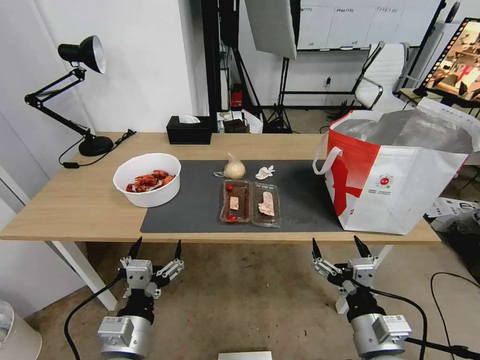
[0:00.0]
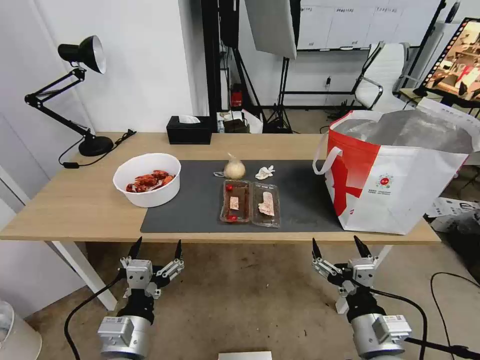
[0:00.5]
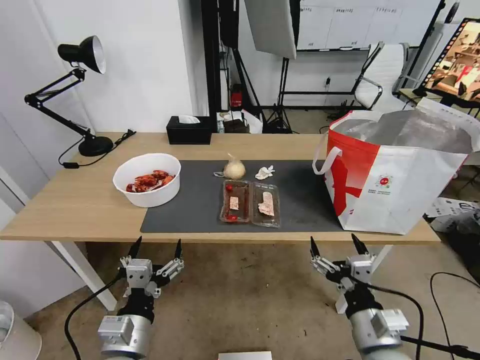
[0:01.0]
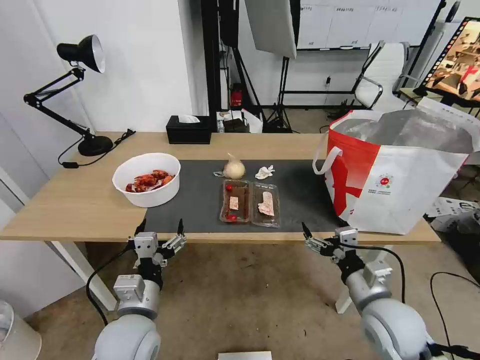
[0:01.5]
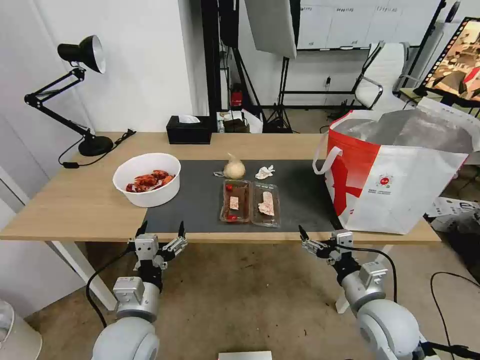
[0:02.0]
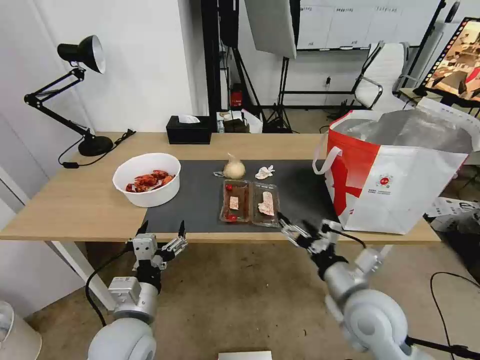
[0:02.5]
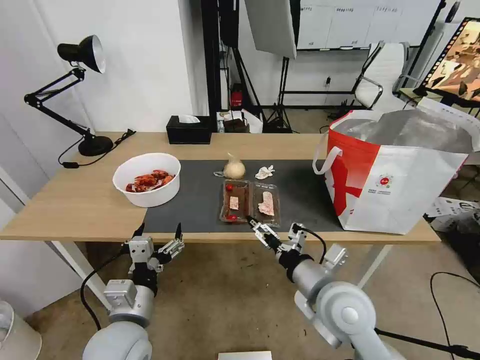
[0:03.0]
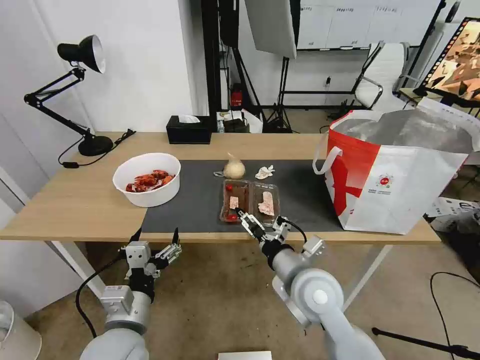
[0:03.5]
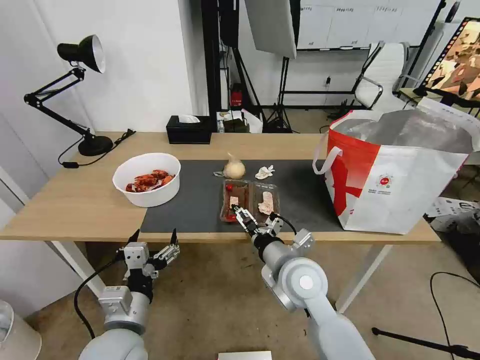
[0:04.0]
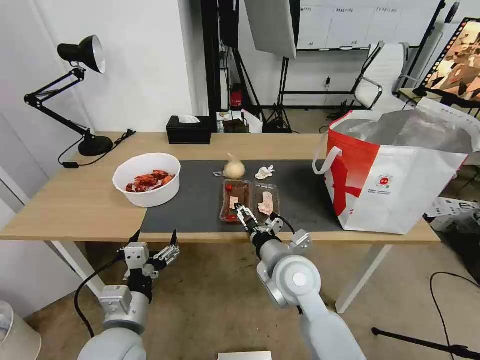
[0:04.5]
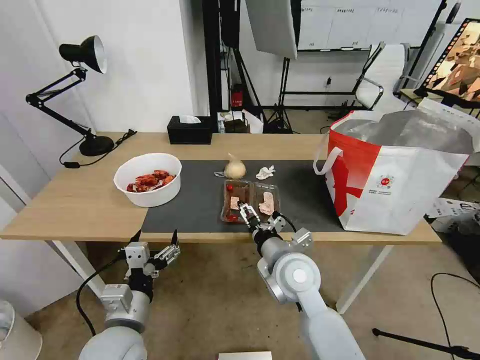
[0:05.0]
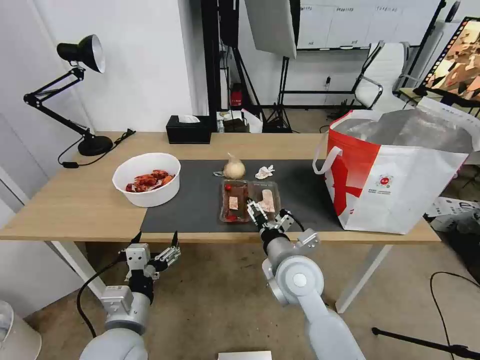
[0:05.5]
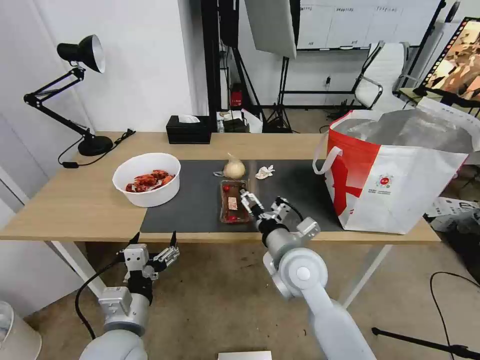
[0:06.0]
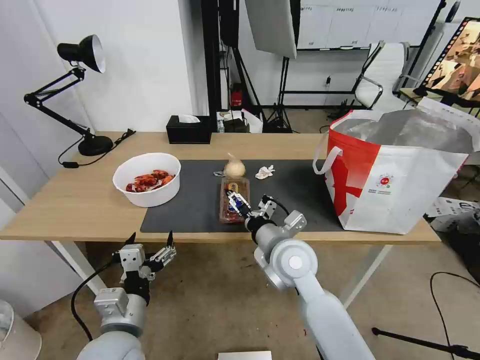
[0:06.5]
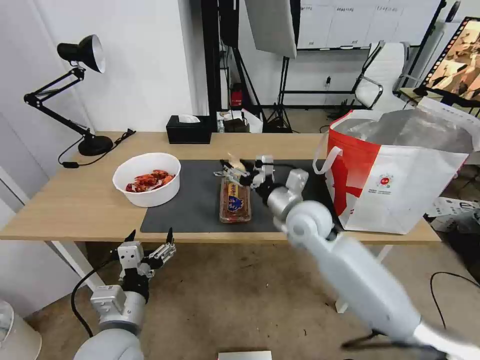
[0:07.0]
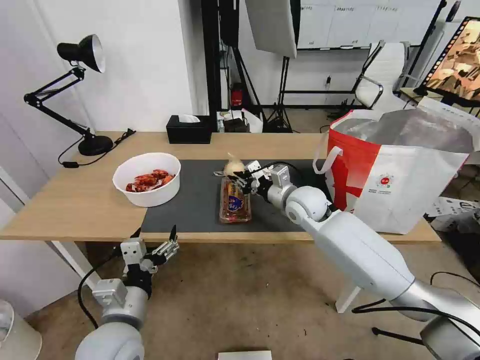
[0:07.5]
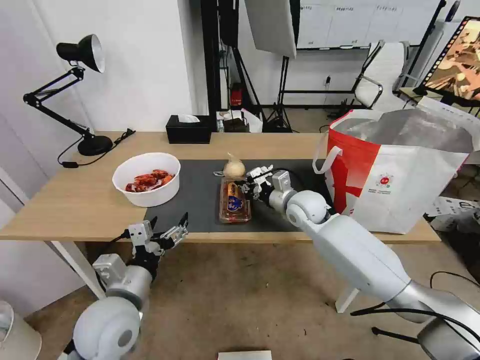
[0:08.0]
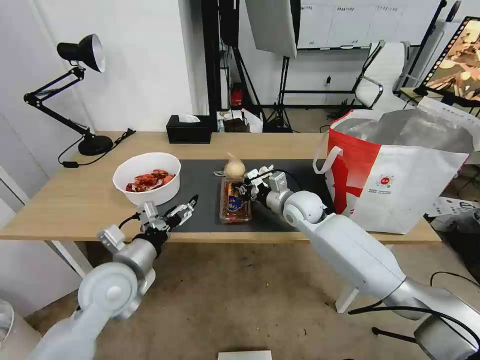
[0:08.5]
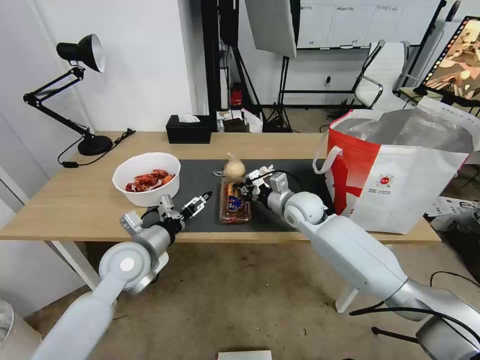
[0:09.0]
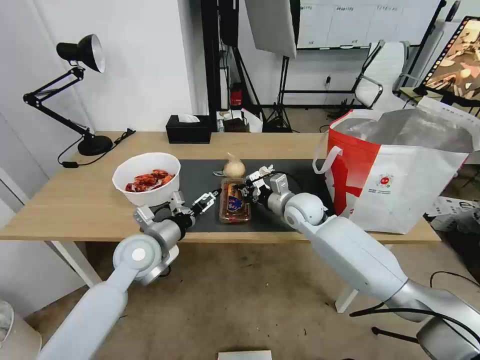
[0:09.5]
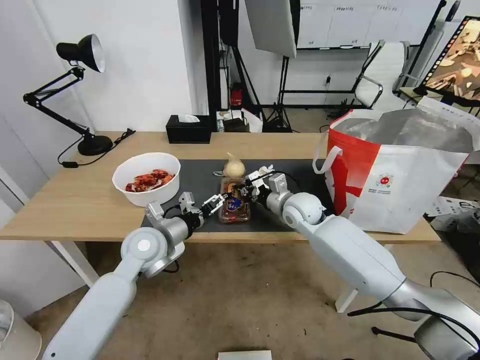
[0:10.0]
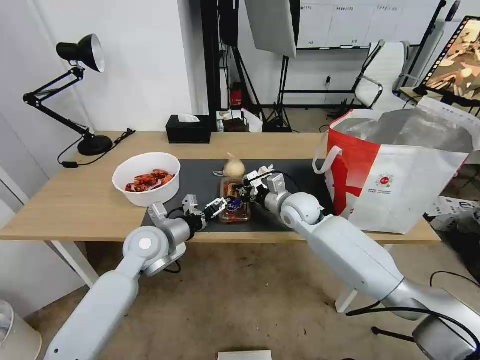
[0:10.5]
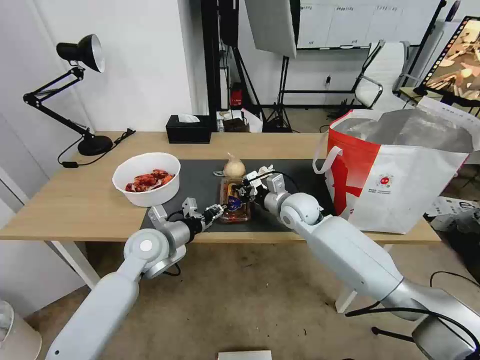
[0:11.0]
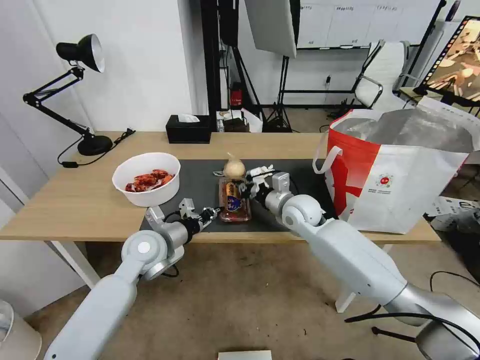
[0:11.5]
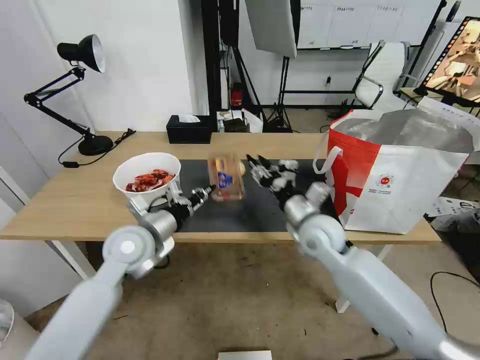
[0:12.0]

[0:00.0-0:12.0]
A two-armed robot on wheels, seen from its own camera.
Task of the whole recording: Pick up the trash from the table and place it into the takeout bag.
0:02.0 to 0:04.0: The right gripper goes some 15 cm to the left and forward.
0:04.0 to 0:06.0: The grippers make only small movements.
0:06.0 to 0:08.0: The right gripper is displaced forward by approximately 20 cm, and closes its fingers. Meanwhile the left gripper moves approximately 5 cm.
0:08.0 to 0:10.0: The left gripper moves forward, about 15 cm.
0:10.0 to 0:12.0: The right gripper travels backward by approximately 10 cm, and opens its fingers. Meanwhile the left gripper closes its fingers.

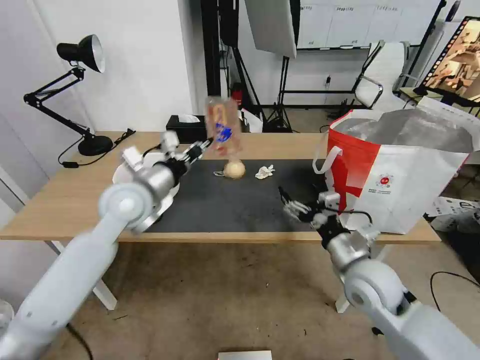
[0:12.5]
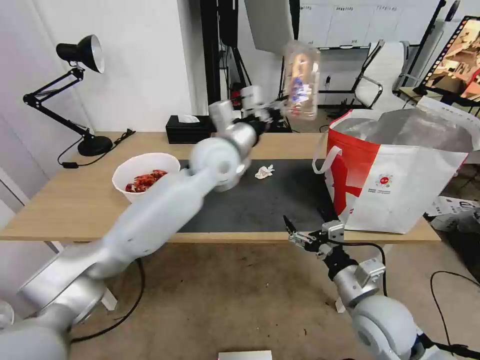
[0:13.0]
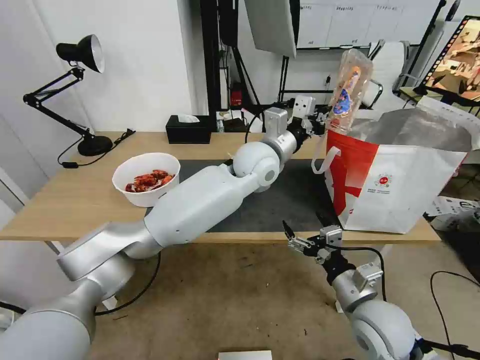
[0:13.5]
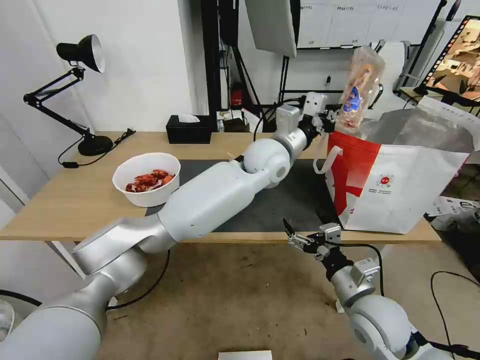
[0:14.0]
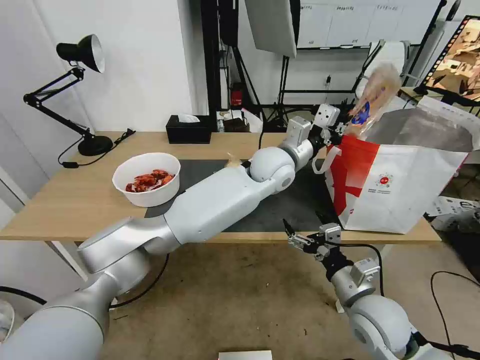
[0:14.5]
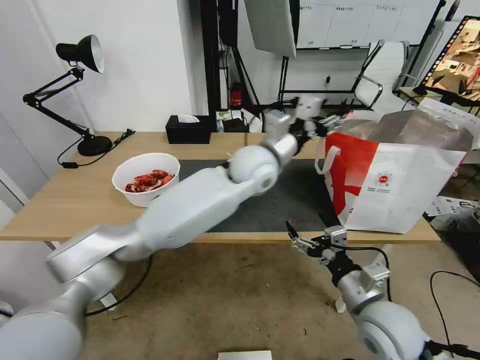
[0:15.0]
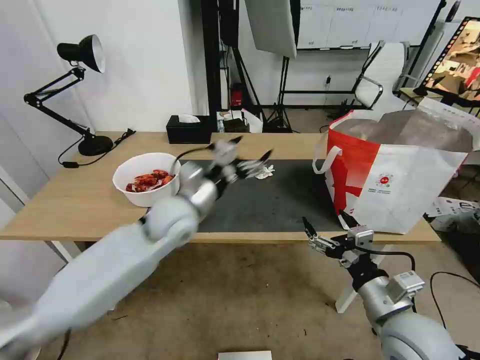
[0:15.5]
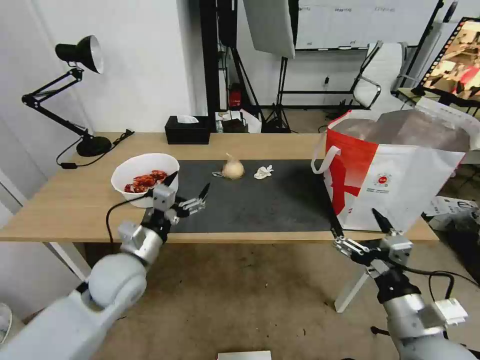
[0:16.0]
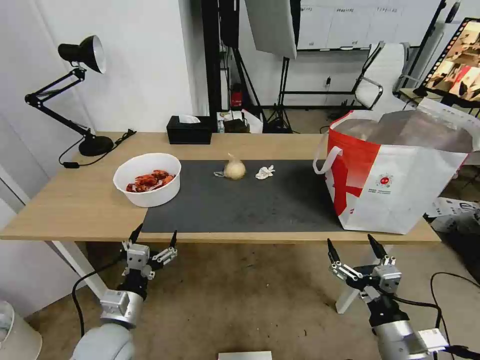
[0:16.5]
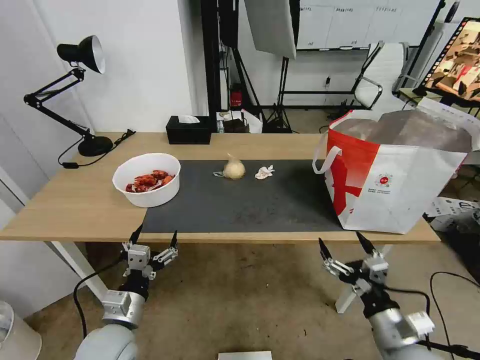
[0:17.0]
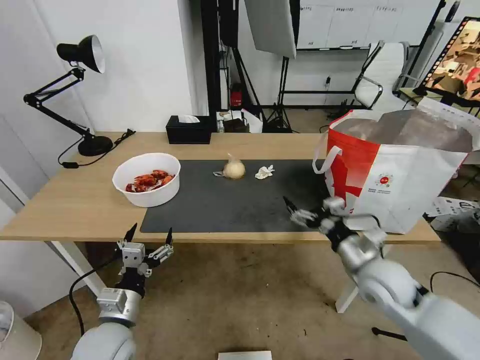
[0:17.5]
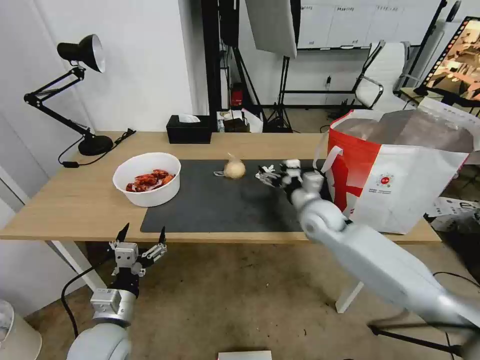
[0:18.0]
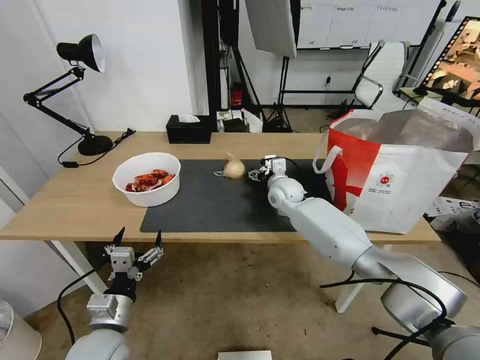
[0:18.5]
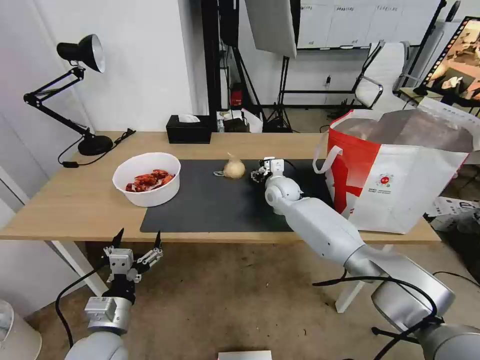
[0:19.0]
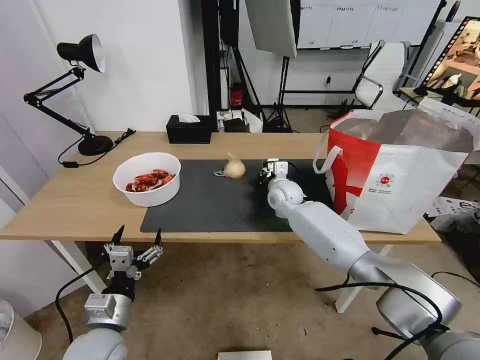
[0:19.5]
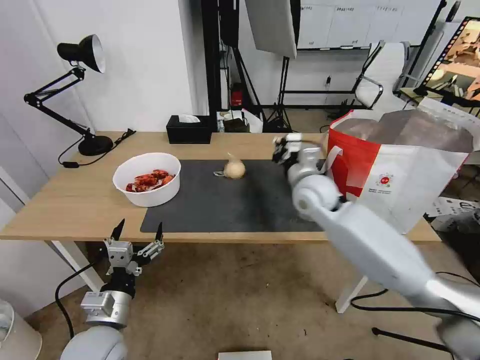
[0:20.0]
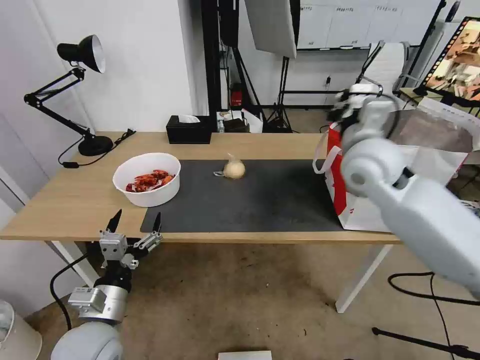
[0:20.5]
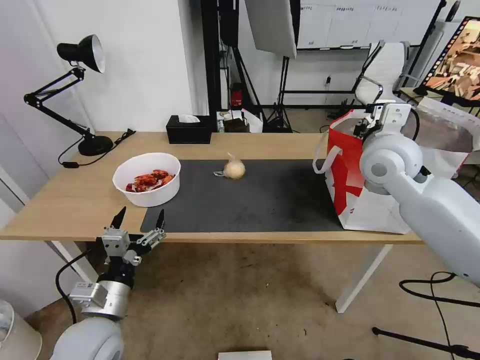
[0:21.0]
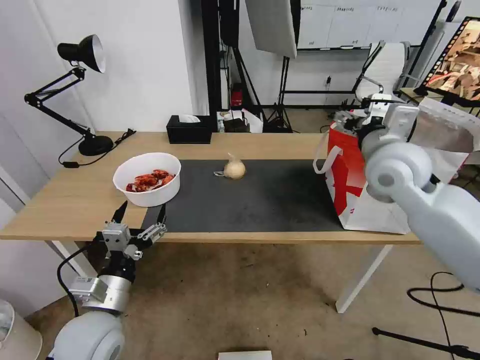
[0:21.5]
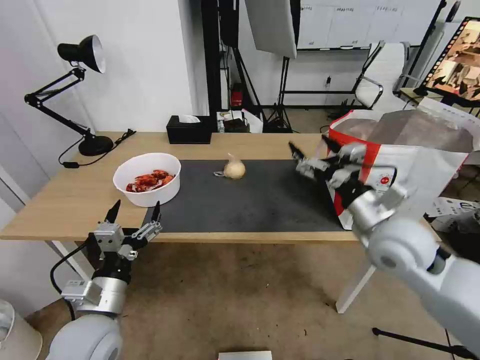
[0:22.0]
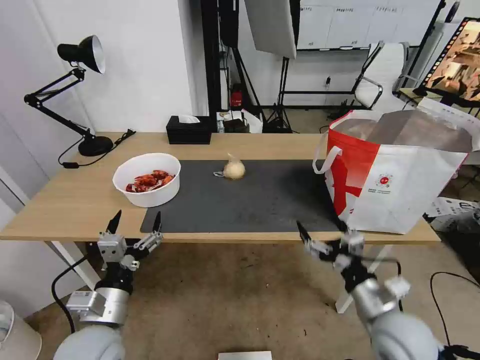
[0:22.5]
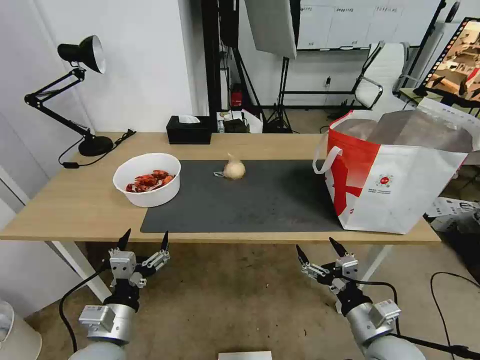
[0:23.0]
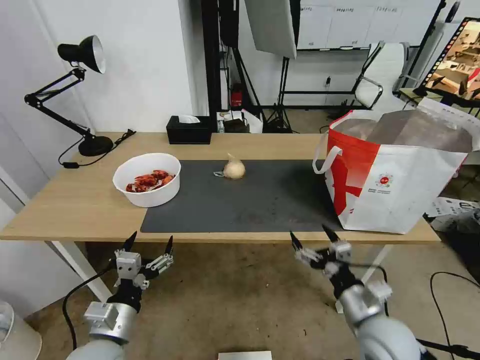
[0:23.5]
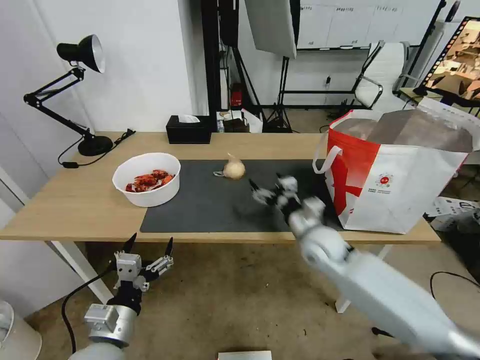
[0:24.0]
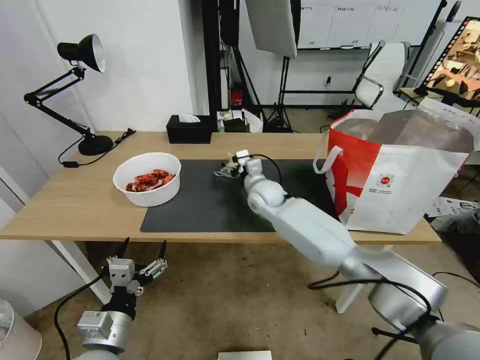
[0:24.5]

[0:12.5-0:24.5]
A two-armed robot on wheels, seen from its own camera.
Task of the whole recording: Pick up the trash from the table and place it into the takeout bag.
0:12.5 to 0:14.5: The left gripper moves to the right, some 30 cm, while the right gripper shifts some 5 cm backward.
0:14.5 to 0:16.5: The left gripper heads to the left, backward and downward, covering roughly 50 cm, and opens its fingers; the right gripper is displaced backward by approximately 10 cm.
0:16.5 to 0:18.5: The right gripper moves forward, about 40 cm.
0:18.5 to 0:20.5: The left gripper is displaced upward by some 5 cm; the right gripper moves upward, backward and to the right, some 25 cm, and closes.
0:20.5 to 0:22.5: The right gripper goes approximately 30 cm downward and backward, and opens its fingers.
0:22.5 to 0:24.5: The right gripper goes some 40 cm forward and to the left.

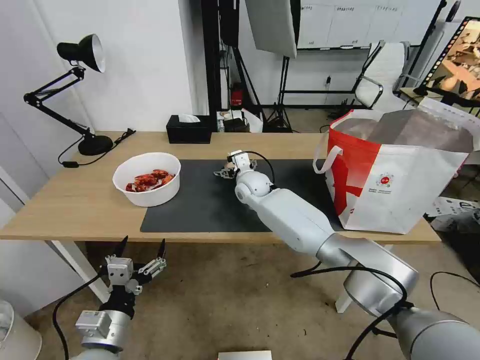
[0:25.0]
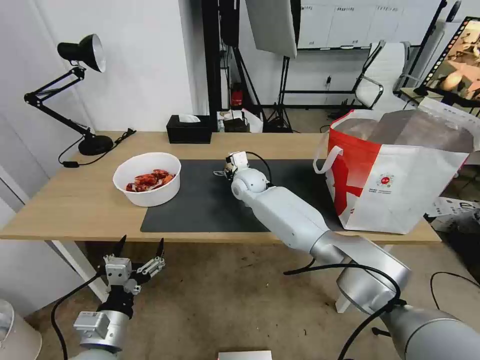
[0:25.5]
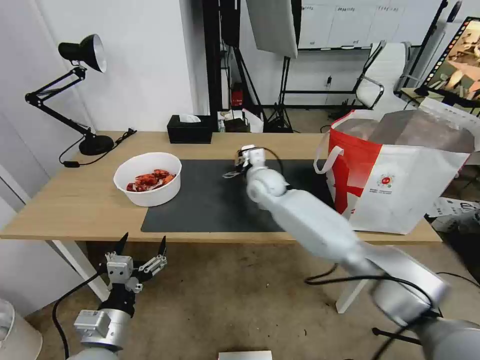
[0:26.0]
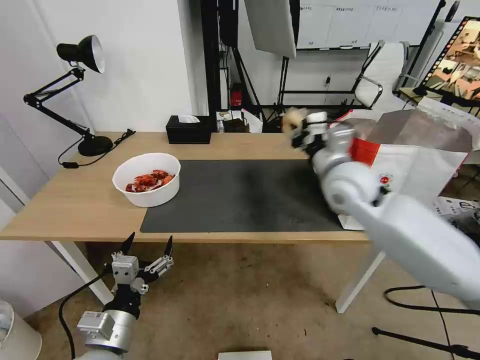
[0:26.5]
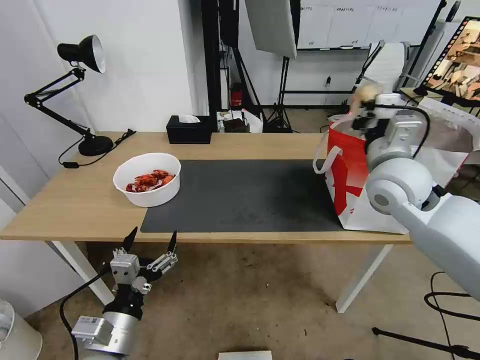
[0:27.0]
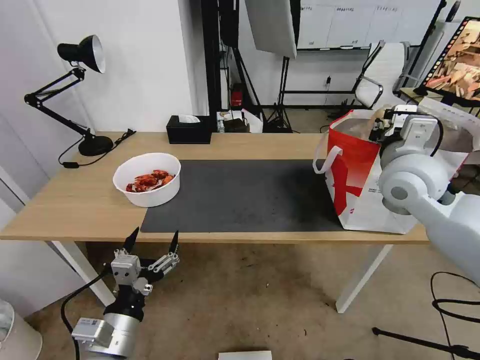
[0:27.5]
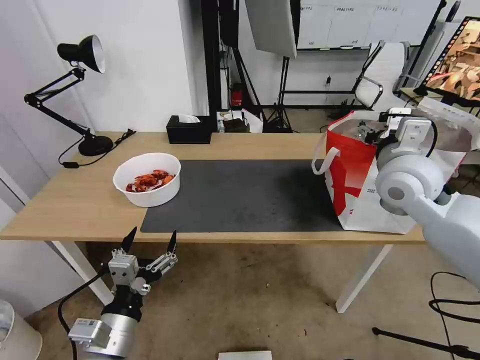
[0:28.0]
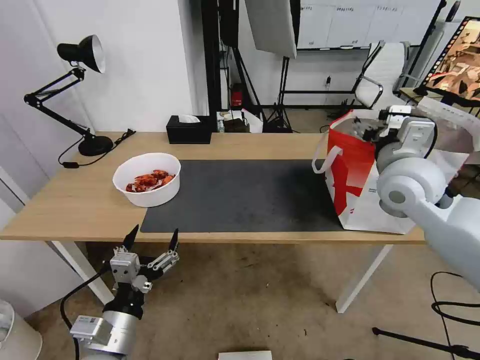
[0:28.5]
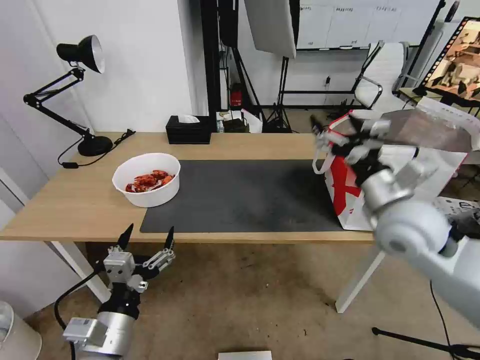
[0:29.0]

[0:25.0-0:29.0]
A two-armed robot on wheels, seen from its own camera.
Task of the whole recording: Pick up the trash from the table and place it into the takeout bag.
0:25.0 to 0:27.0: The right gripper is displaced to the right, upward and backward by roughly 35 cm, and closes its fingers.
0:27.0 to 0:29.0: The right gripper heads backward and downward, covering about 10 cm, and opens its fingers.
